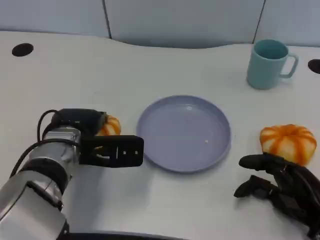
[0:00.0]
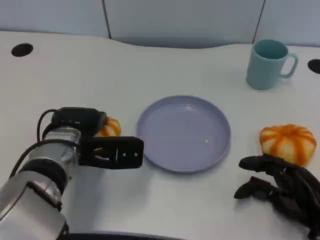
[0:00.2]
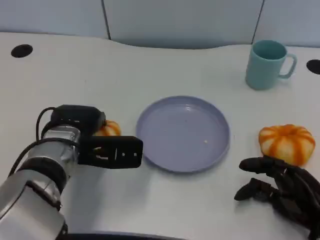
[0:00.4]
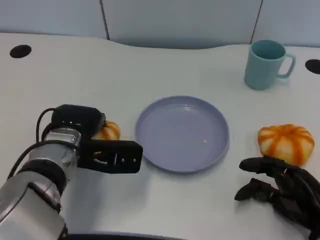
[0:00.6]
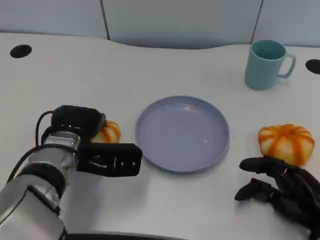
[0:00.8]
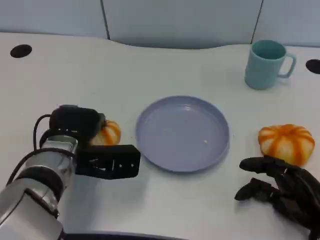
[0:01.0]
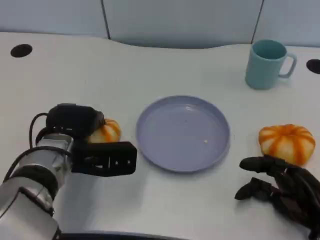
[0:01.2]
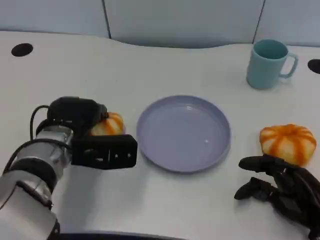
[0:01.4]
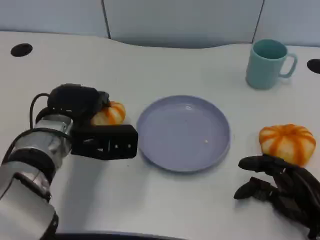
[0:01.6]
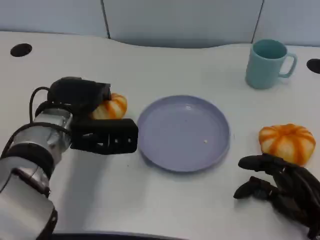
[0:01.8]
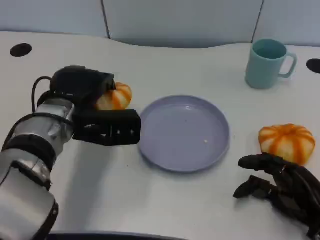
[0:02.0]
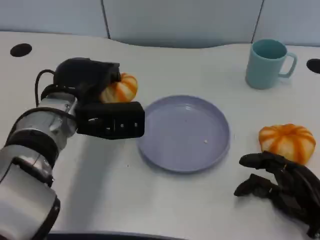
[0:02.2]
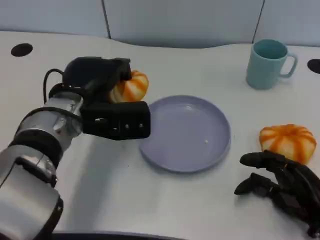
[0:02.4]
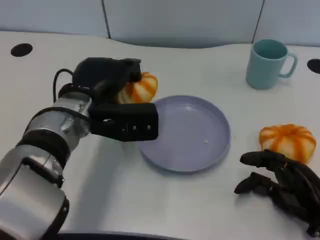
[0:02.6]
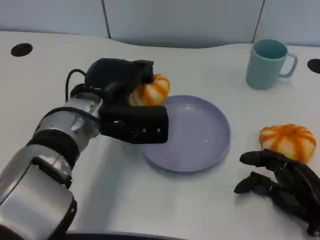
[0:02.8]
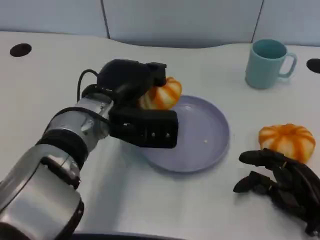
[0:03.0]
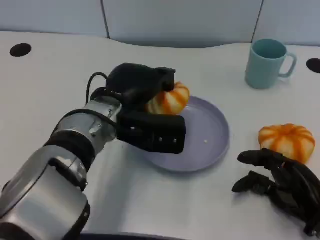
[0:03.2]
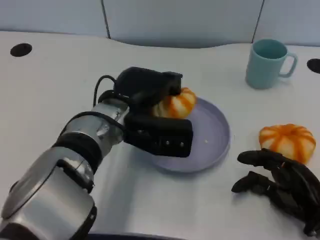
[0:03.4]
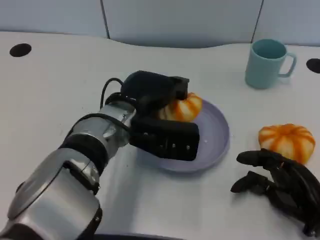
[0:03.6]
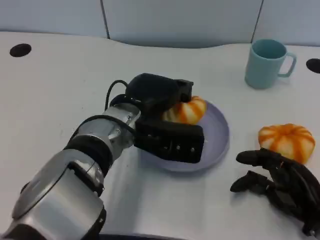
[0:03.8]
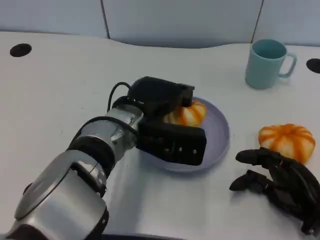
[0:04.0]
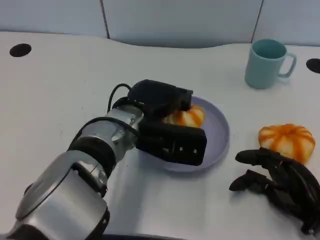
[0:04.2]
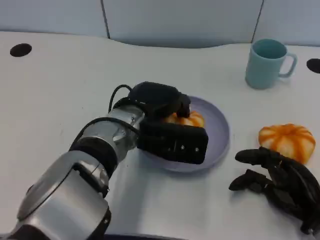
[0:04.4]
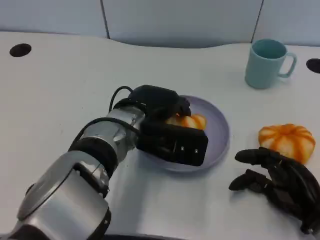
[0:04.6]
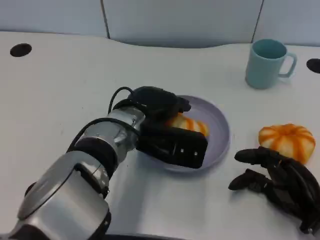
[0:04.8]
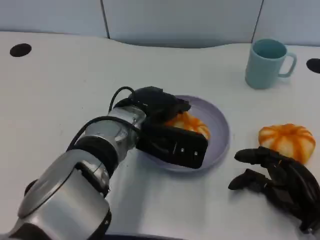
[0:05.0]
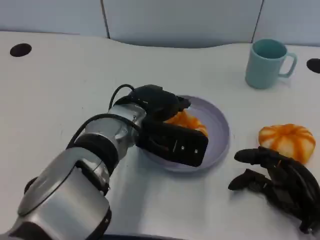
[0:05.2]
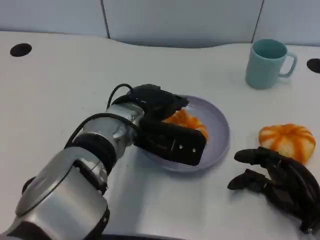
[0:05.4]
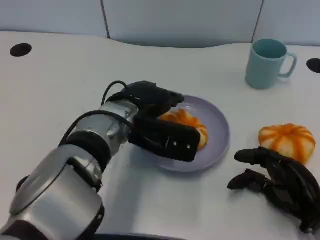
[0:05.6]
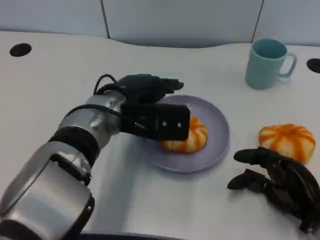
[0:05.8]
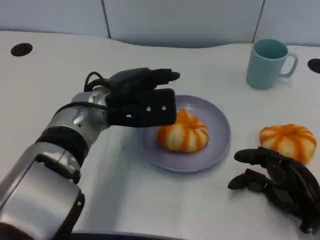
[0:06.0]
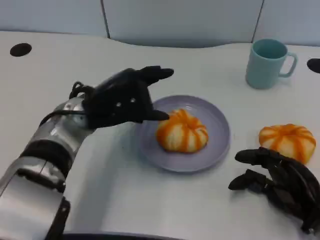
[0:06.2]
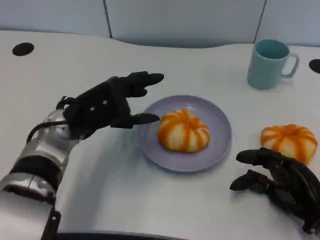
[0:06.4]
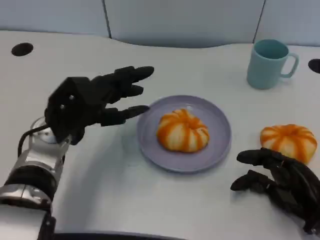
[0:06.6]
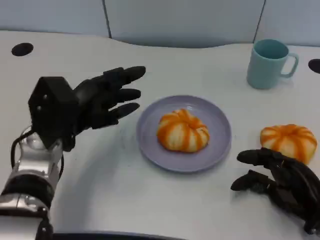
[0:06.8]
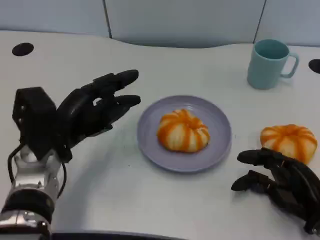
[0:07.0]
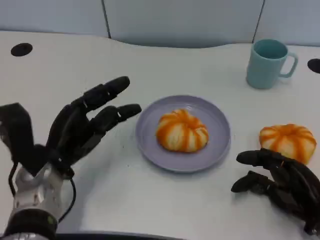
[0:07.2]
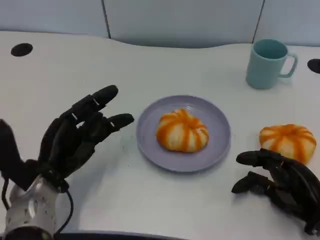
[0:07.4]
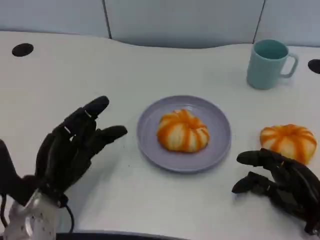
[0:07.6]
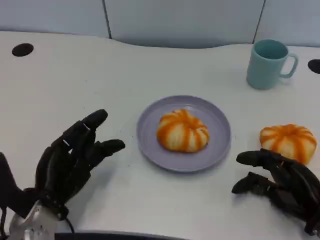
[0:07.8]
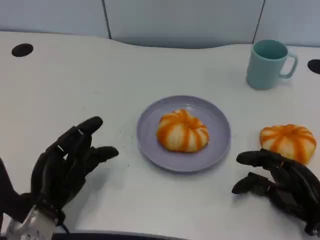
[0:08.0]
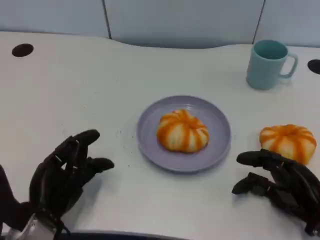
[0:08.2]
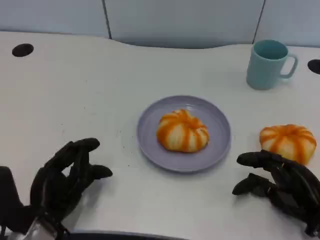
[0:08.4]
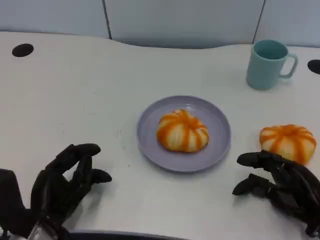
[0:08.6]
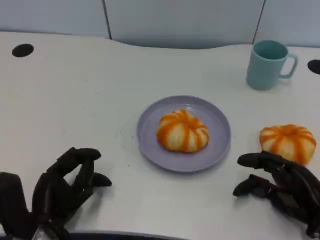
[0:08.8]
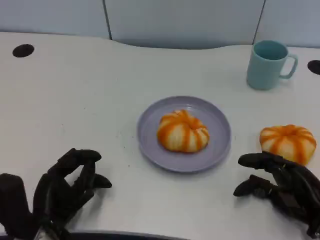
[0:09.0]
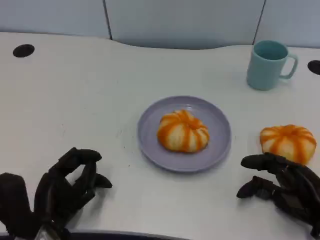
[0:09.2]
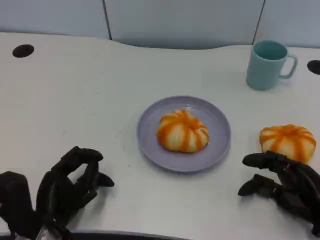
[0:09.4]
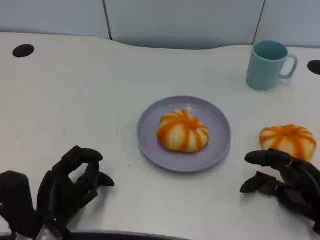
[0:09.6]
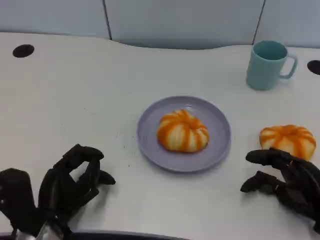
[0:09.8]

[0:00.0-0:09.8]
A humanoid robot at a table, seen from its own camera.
Task of the whole recording: Grasp the bread from the table and place it into the plate.
0:00.0 to 0:01.4: There are only small adjustments of the hands.
0:01.4 to 0:02.8: The left hand is displaced to the right by approximately 5 cm.
0:02.8 to 0:04.2: The left hand goes roughly 5 cm to the right.
0:04.2 to 0:05.6: There are only small adjustments of the hands.
0:05.6 to 0:07.0: The left hand heads to the left, covering about 10 cm.
0:07.0 to 0:08.4: The left hand travels backward and downward by some 10 cm.
0:08.4 to 0:09.8: There are only small adjustments of the hands.

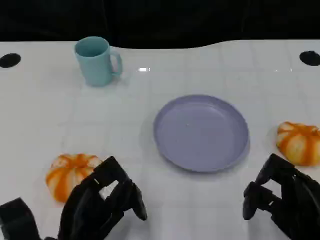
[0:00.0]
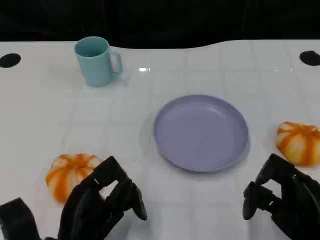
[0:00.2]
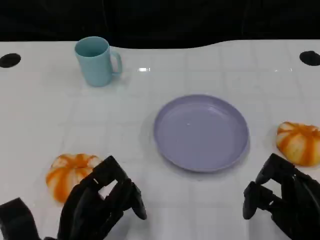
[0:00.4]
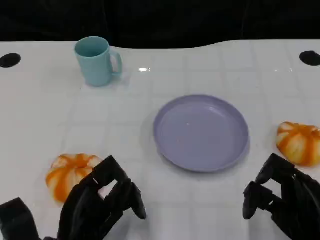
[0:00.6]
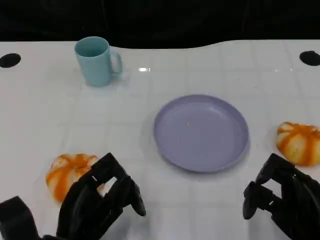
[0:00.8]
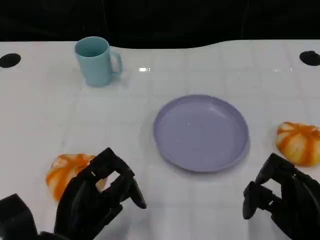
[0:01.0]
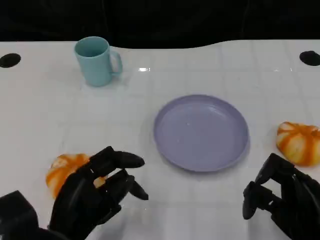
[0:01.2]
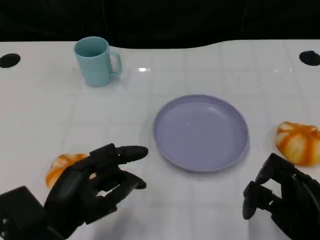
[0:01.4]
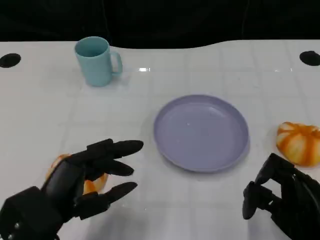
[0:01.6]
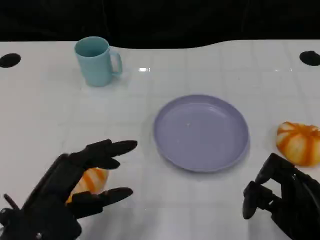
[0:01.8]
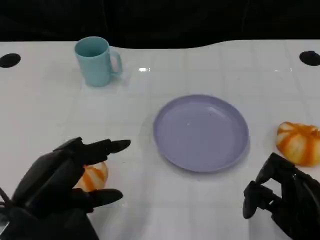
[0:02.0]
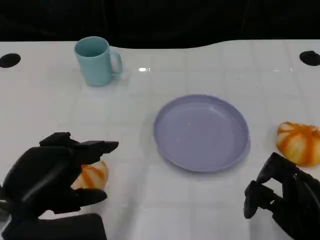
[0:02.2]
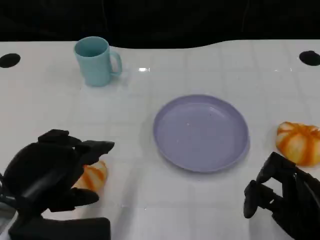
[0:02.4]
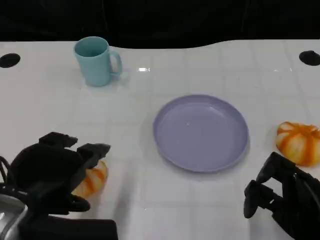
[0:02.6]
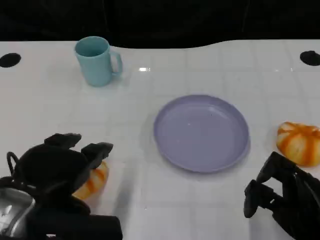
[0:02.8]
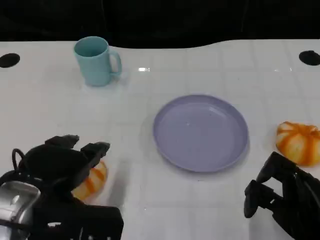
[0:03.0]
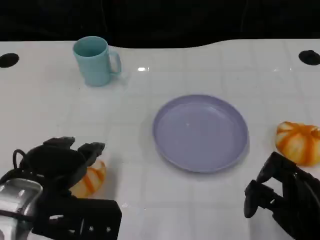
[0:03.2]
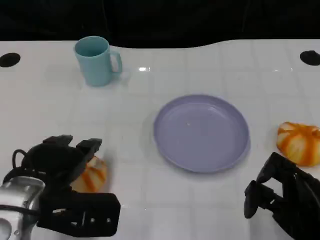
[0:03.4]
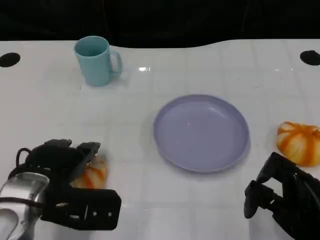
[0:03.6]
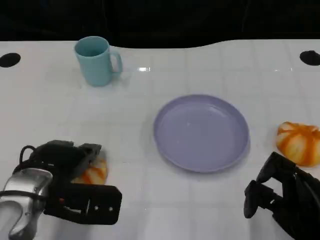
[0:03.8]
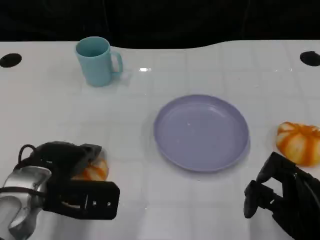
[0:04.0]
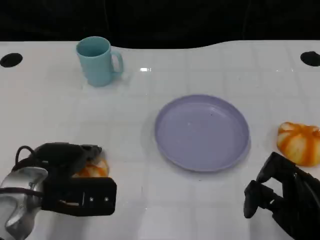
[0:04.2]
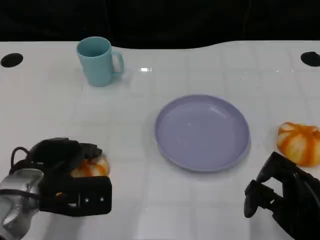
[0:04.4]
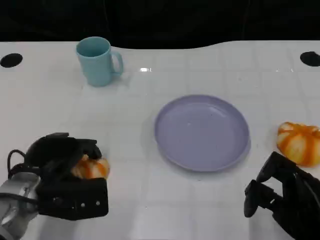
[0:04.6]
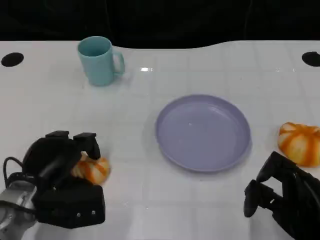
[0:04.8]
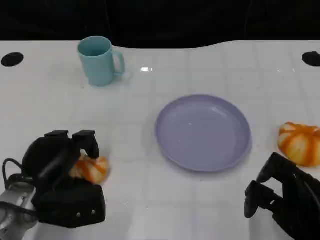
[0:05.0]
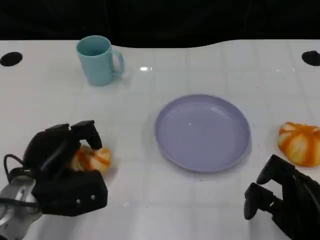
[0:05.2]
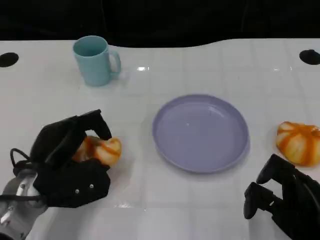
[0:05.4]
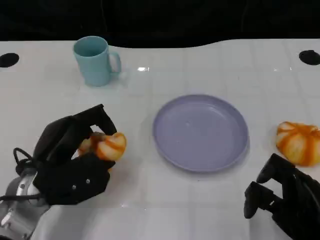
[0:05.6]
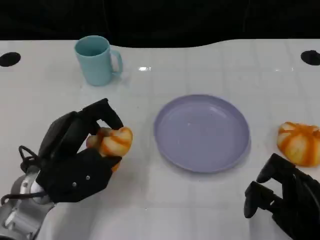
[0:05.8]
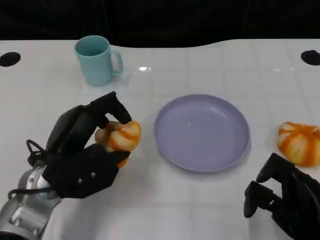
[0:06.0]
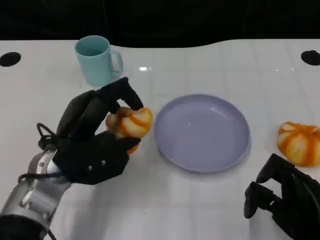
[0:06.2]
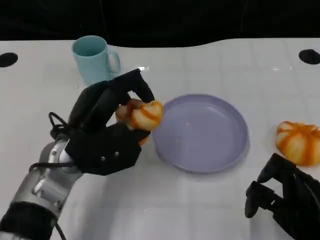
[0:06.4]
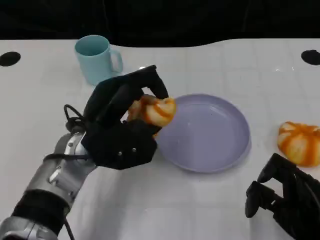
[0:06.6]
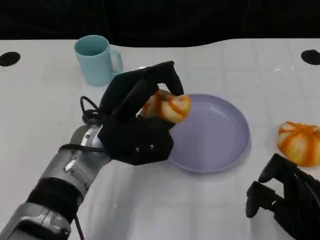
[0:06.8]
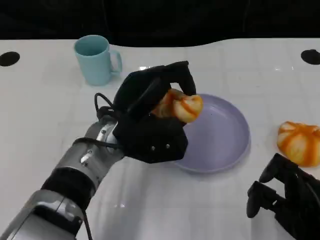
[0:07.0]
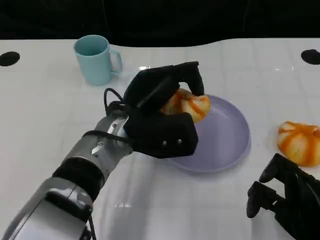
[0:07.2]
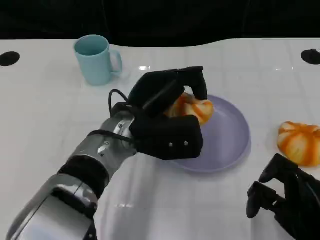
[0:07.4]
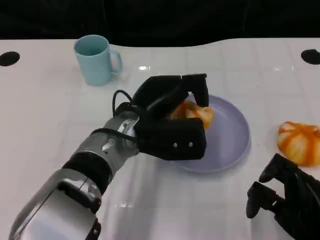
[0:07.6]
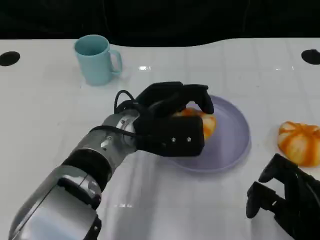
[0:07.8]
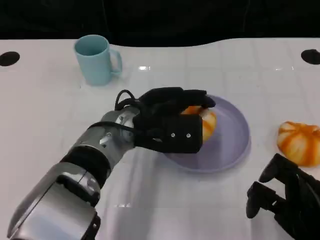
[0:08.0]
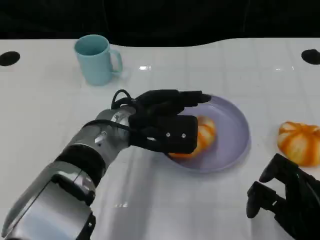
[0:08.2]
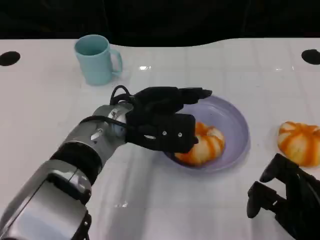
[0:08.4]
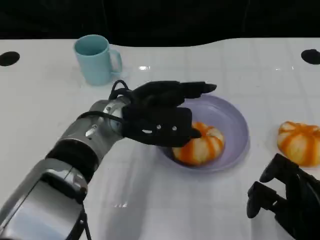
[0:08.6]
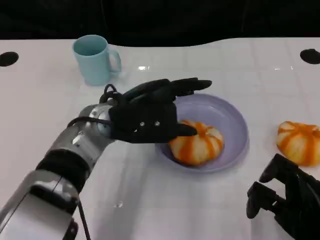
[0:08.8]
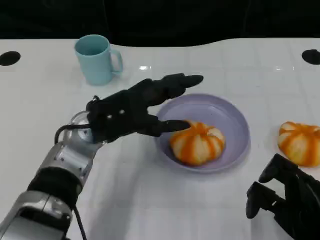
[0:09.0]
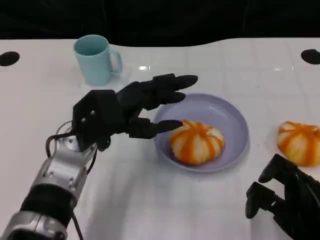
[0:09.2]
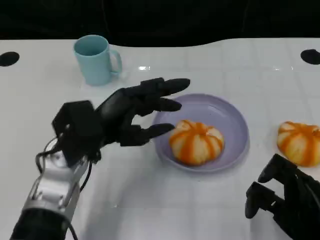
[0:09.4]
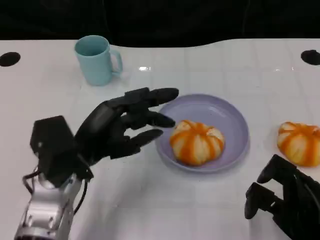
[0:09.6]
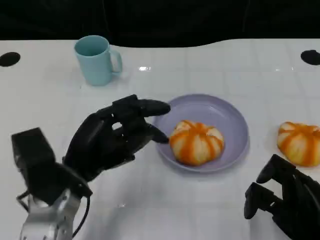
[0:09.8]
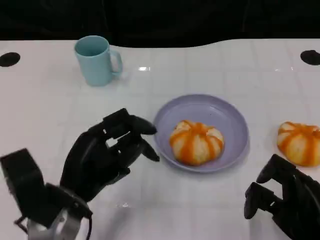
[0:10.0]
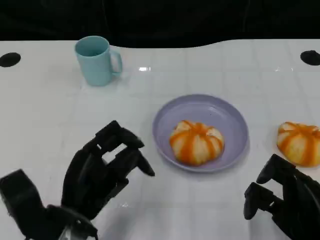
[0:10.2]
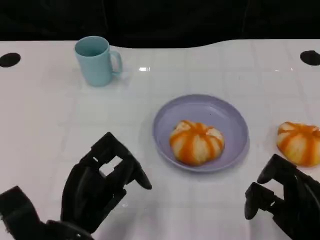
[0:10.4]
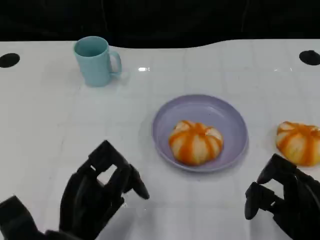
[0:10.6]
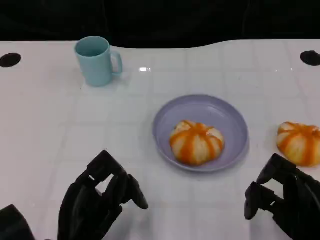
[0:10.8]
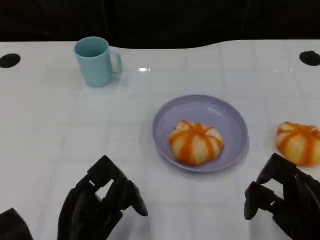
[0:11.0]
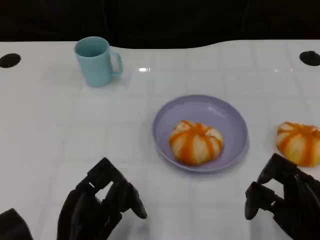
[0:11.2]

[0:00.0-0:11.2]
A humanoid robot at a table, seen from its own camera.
Task of the whole recording: Grasp the bread from the table and place it into the plate.
0:00.0 to 0:01.6: The left hand heads upward, covering roughly 5 cm.
0:03.2 to 0:04.8: The left hand heads downward, covering approximately 10 cm.
0:04.8 to 0:06.4: The left hand is displaced upward and to the right by approximately 10 cm.
0:06.4 to 0:08.0: The left hand moves to the right, approximately 10 cm.
0:08.0 to 0:09.6: The left hand moves to the left and backward, some 10 cm.
0:09.6 to 0:11.2: The left hand goes about 10 cm backward and downward.

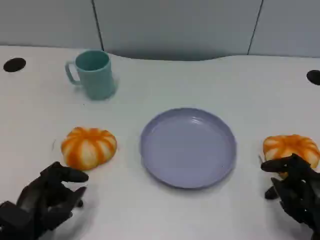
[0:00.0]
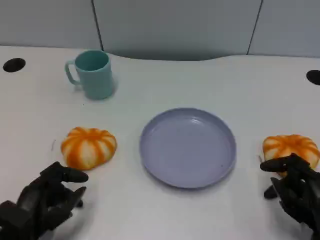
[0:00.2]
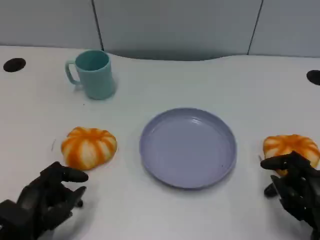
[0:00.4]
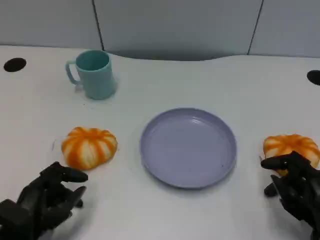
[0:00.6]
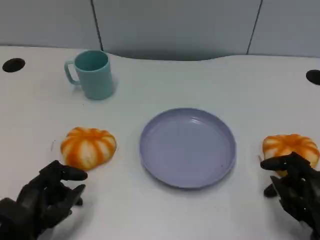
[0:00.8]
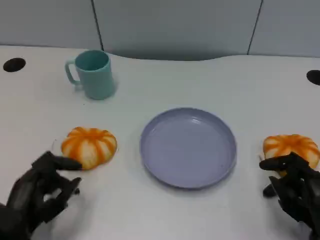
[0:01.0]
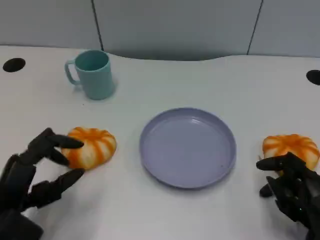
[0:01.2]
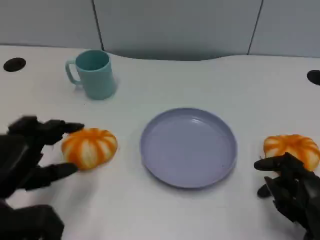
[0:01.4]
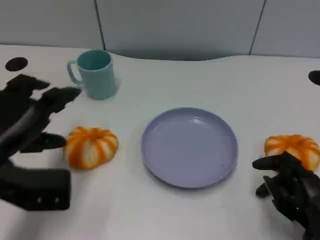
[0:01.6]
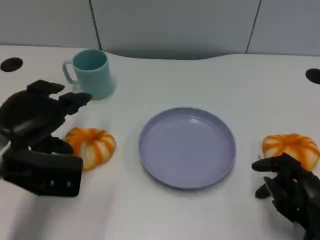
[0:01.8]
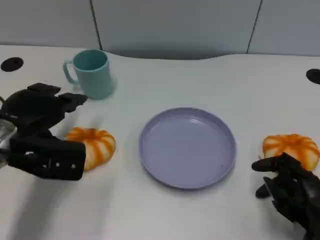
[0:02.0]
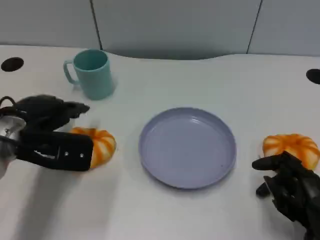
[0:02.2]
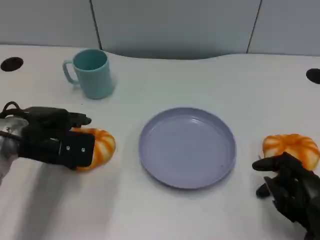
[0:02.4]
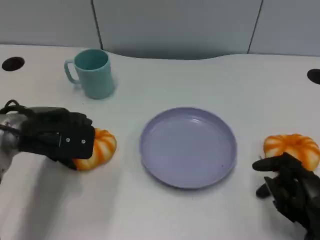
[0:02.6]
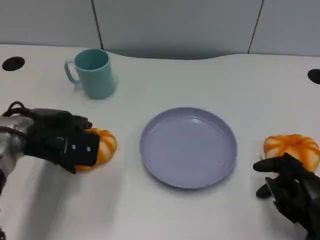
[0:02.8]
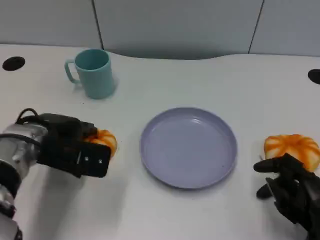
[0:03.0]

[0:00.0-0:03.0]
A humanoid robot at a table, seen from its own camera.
Task of the whole recording: Grasp the bread from the table and place it into the plate.
0:00.0 to 0:01.6: The left hand heads upward and forward, covering roughly 15 cm.
0:01.6 to 0:03.0: The left hand shifts roughly 10 cm forward and to the right.
